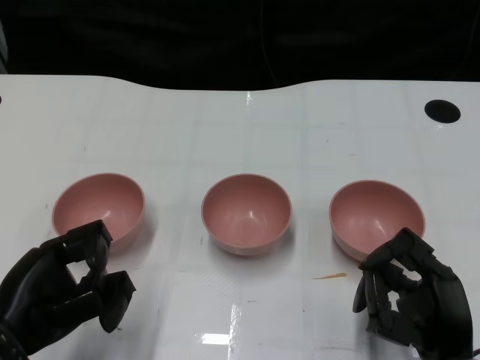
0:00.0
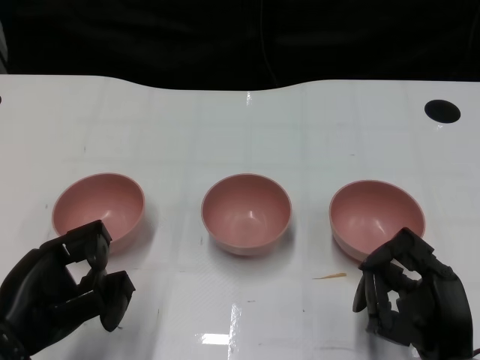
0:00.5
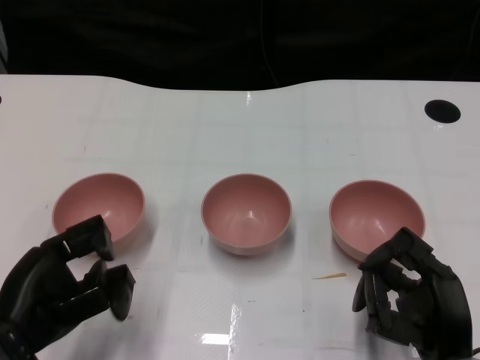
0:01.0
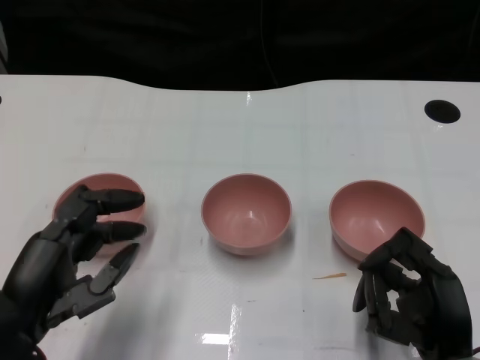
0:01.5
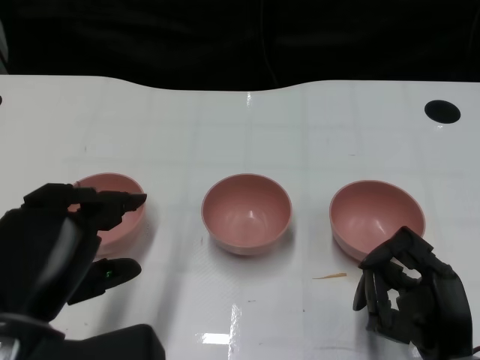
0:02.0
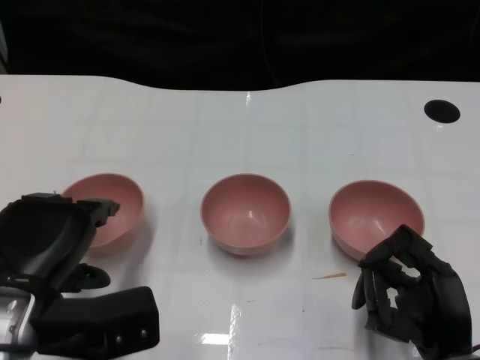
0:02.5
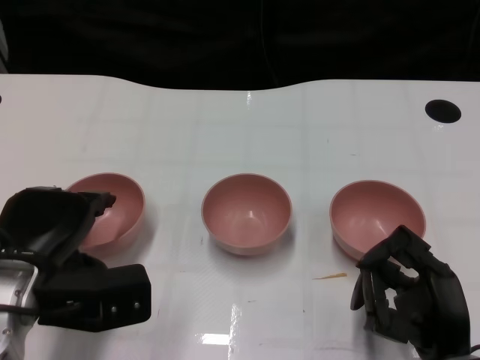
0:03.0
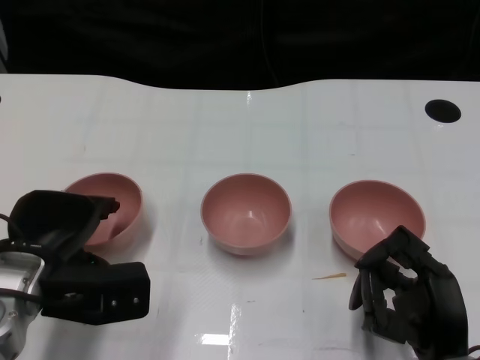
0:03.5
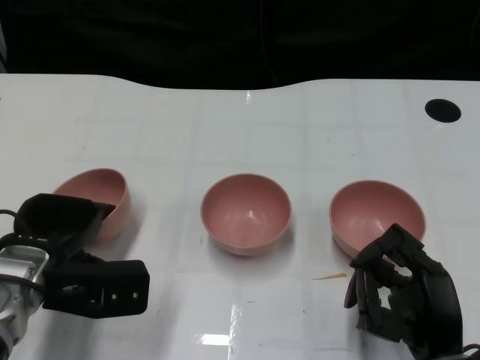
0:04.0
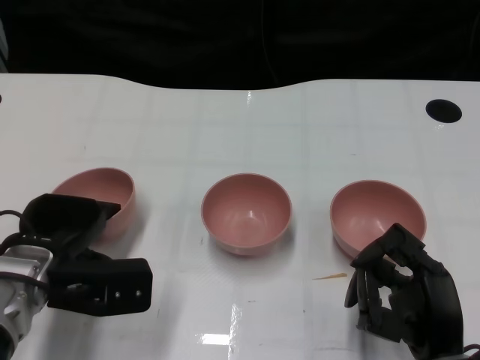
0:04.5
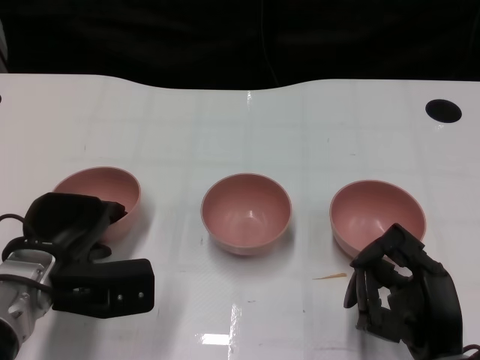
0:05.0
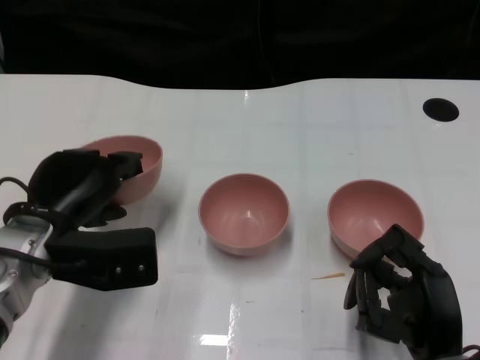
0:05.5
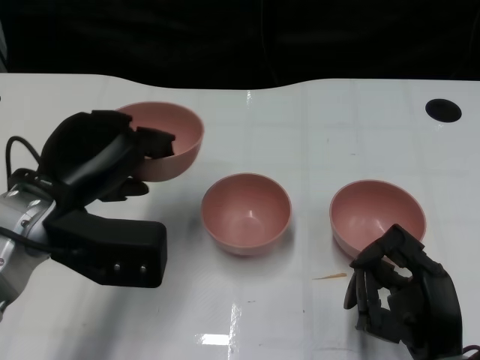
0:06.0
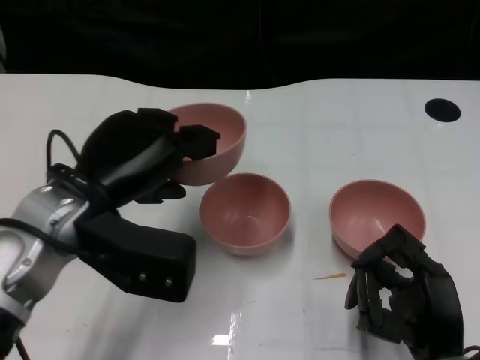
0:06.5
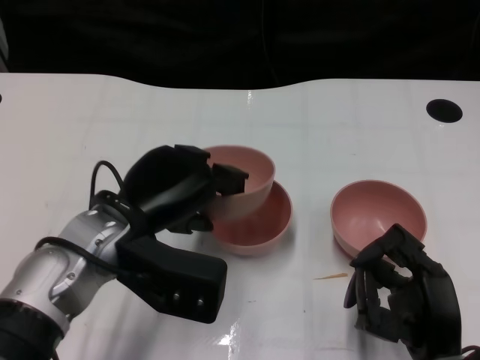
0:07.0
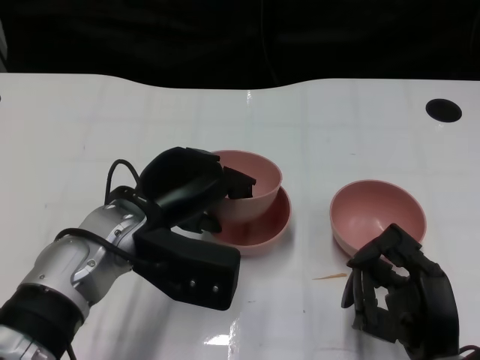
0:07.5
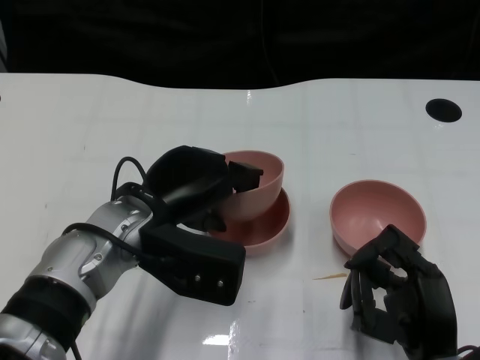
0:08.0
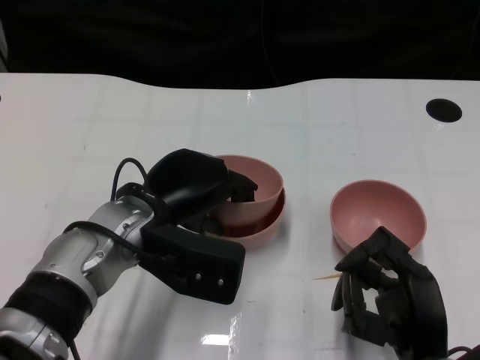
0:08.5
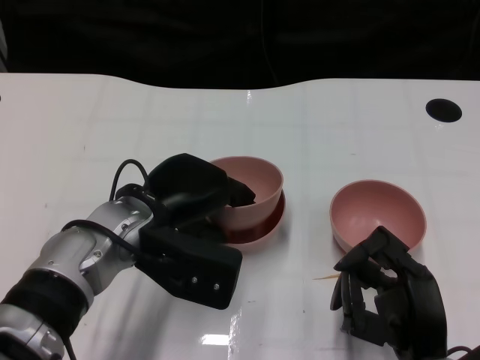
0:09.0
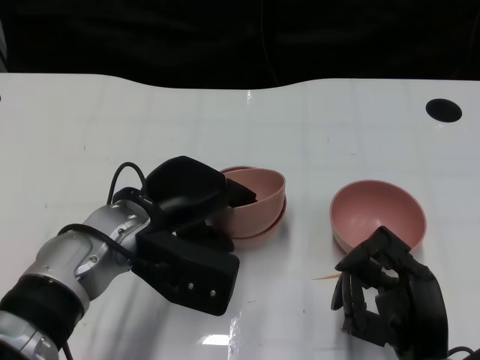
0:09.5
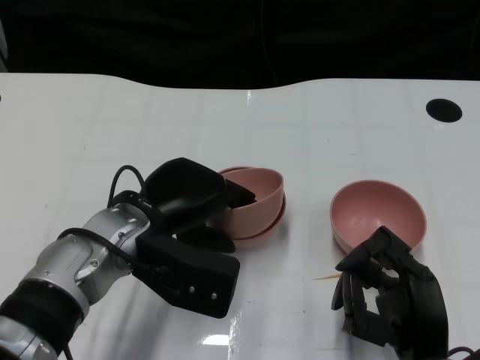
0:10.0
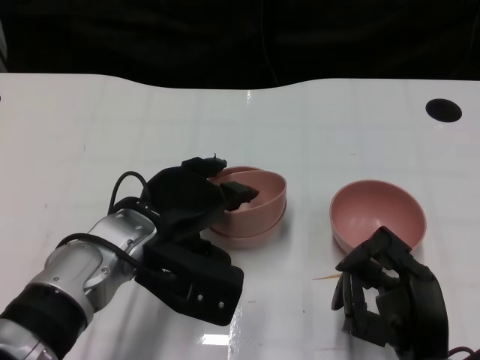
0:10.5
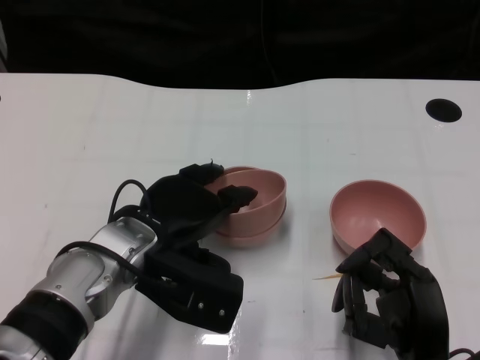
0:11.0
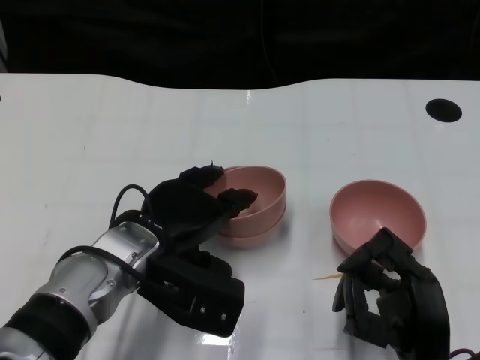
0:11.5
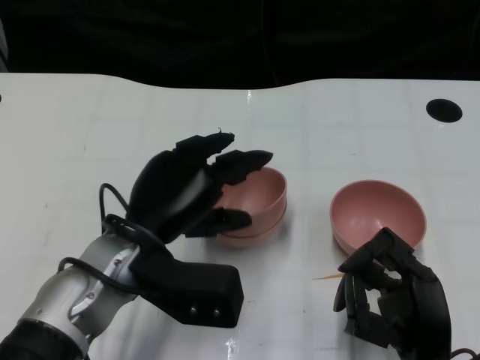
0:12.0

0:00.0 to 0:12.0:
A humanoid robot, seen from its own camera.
Task of the whole recording: Pick up the bowl on one side of the table and place it on top of the middle bowl, then pick up the bowl on the other side of the table and place it on top of the middle bowls.
Step, 0:01.0 to 0:05.0: Grasp the bowl on the left with the left gripper.
Step, 0:05.5 to 0:11.5: Place the bowl on the left onto the bowl in the middle with left gripper.
0:02.0 to 0:04.0: The left hand is displaced forward and downward by some 10 cm.
0:04.0 to 0:06.0: The left hand travels upward by roughly 10 cm.
0:06.0 to 0:08.0: The left hand is displaced to the right by approximately 10 cm.
0:08.0 to 0:10.0: The hands move only a little.

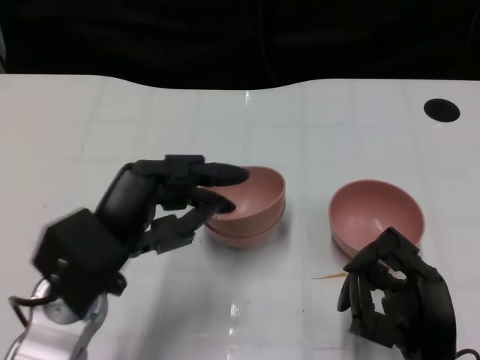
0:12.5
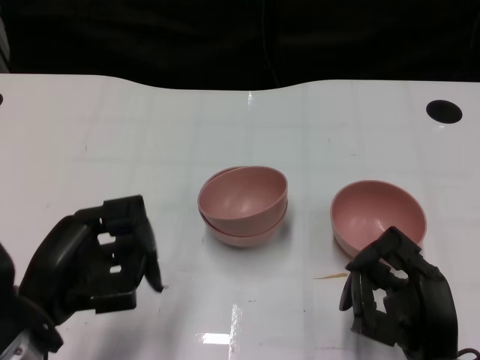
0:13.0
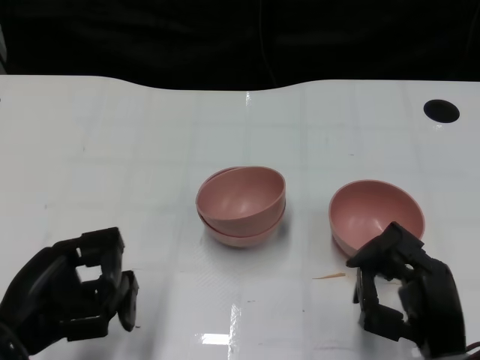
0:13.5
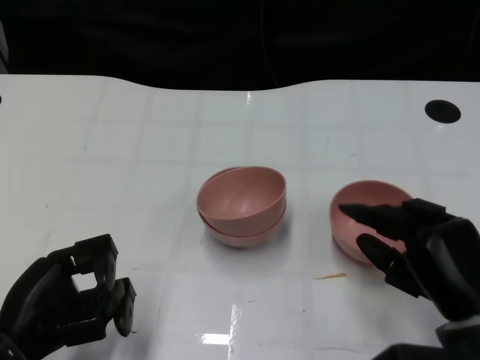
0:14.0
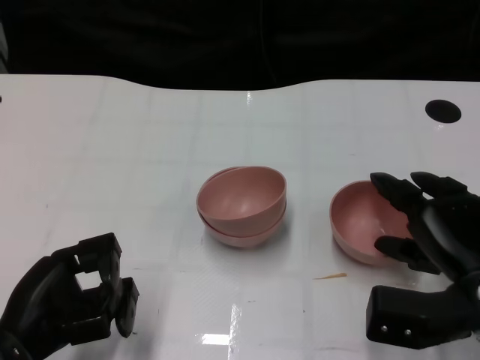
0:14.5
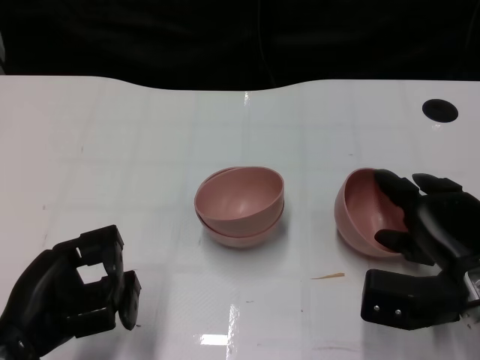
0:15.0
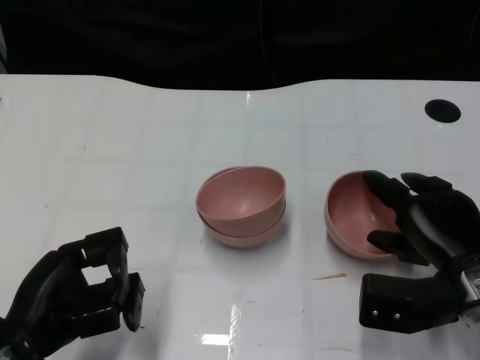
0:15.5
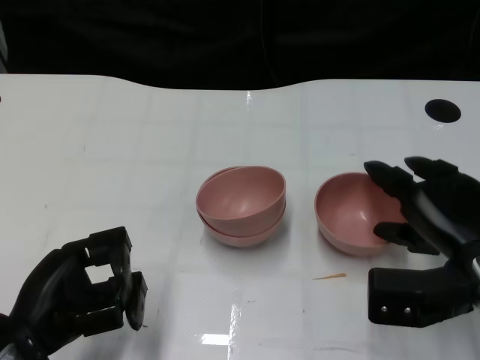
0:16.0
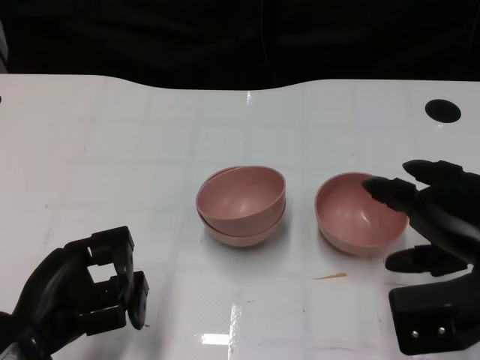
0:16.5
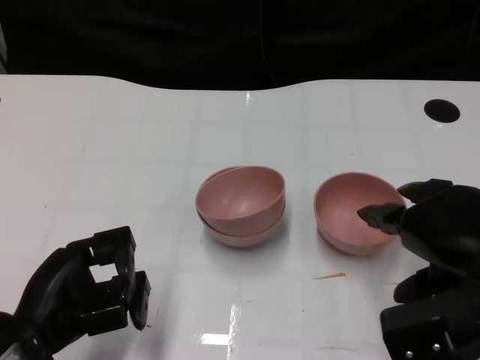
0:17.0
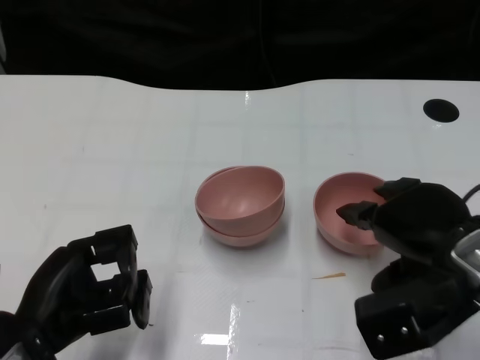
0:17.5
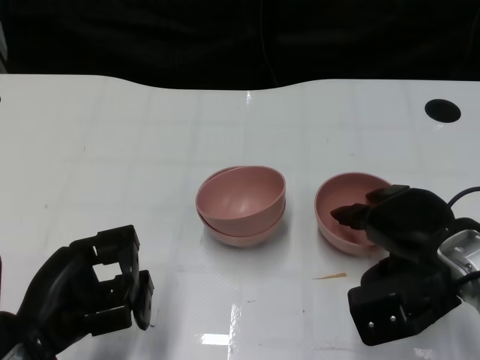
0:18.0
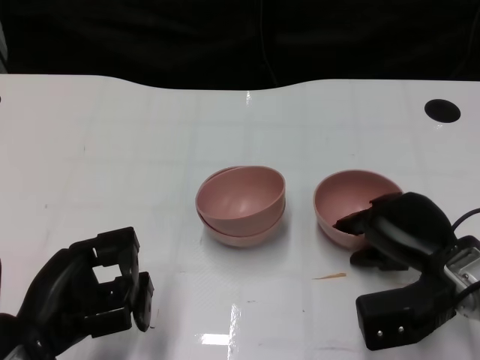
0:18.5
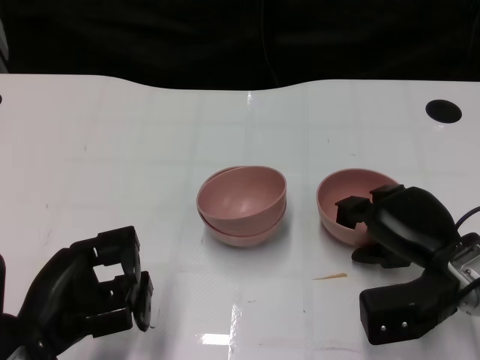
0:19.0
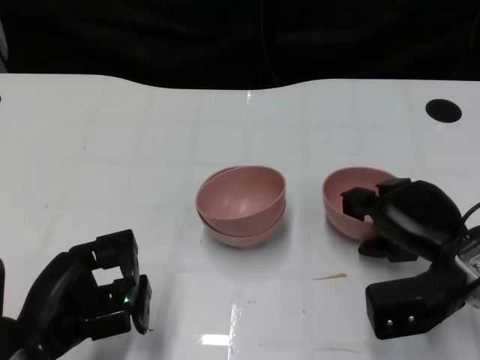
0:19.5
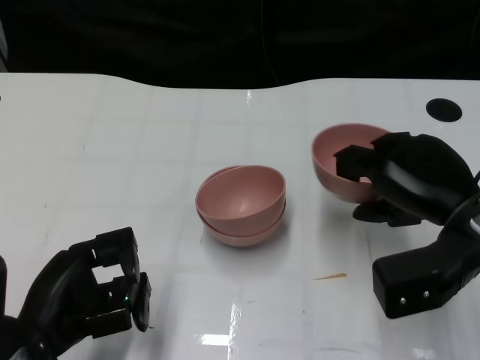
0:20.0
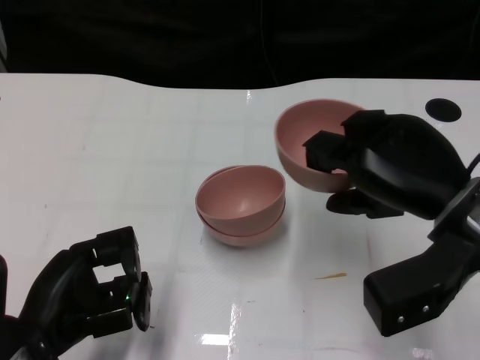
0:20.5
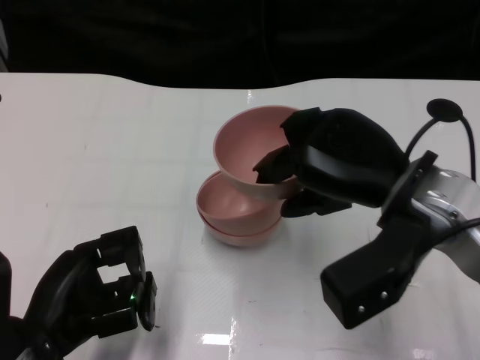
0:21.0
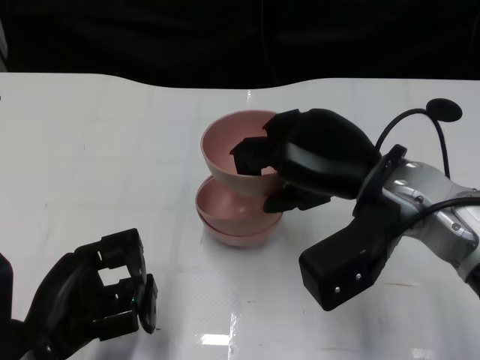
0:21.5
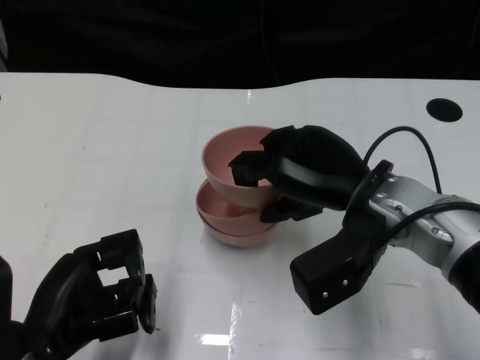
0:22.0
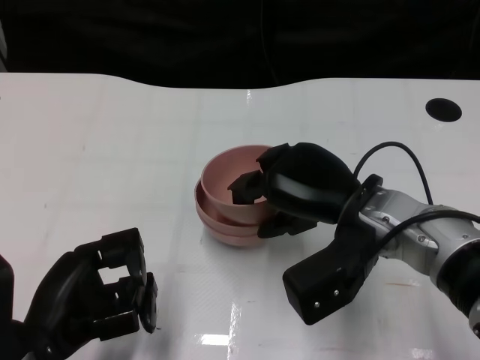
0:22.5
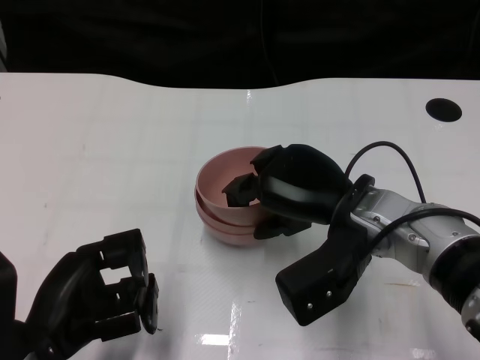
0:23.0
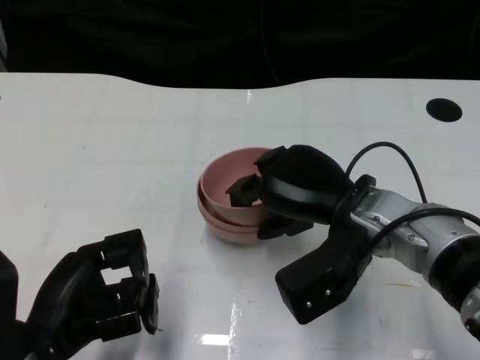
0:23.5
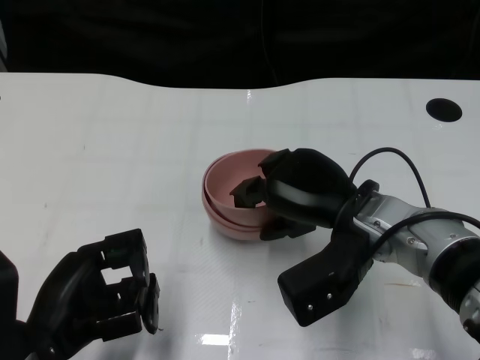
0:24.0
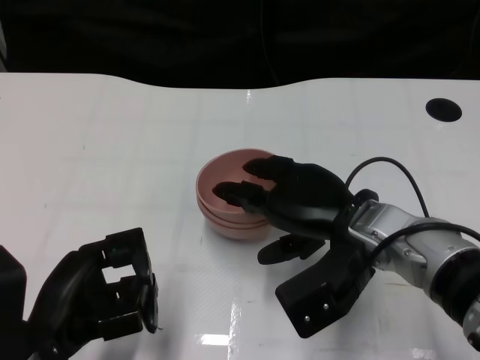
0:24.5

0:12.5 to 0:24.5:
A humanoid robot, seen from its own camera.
Task of the whole recording: Pick up the bowl on one side of the table and place it on top of the middle bowl, then pick up the bowl on the other side of the table and place it on top of the middle bowls.
Step, 0:12.5 to 0:19.5: Grasp the bowl on the right with the right gripper.
0:12.5 to 0:14.5: The left hand shifts some 10 cm to the left and downward. Meanwhile the right hand heads forward, to the right and upward, covering roughly 10 cm.
0:14.5 to 0:16.5: The right hand travels upward by roughly 5 cm.
0:16.5 to 0:18.5: The right hand is displaced downward by roughly 10 cm.
0:18.5 to 0:20.5: The right hand moves upward, approximately 10 cm.
0:20.5 to 0:22.5: The right hand shifts approximately 10 cm to the left and downward.
0:22.5 to 0:24.5: There are only small adjustments of the hands.

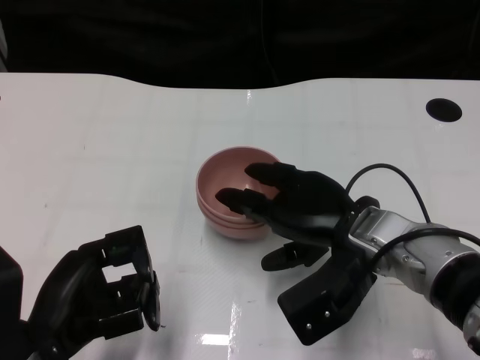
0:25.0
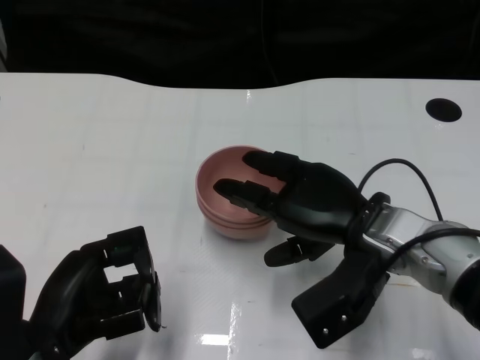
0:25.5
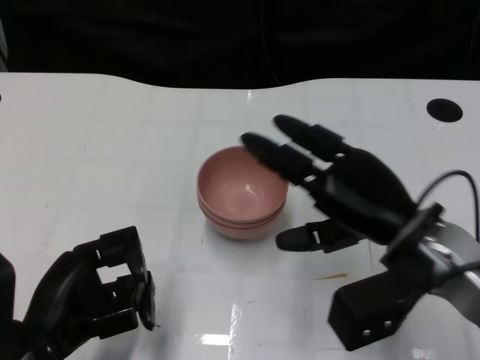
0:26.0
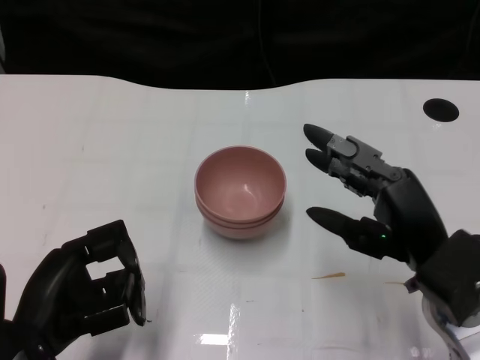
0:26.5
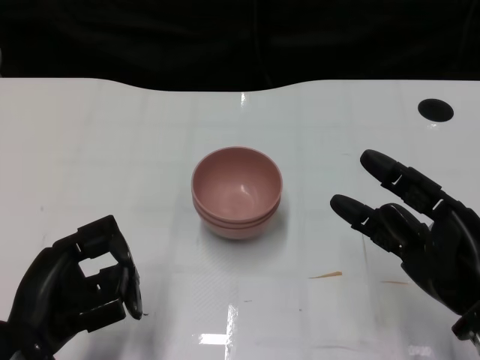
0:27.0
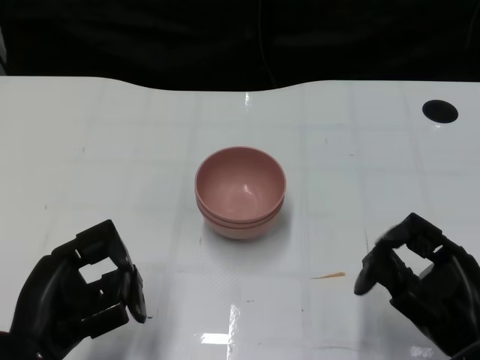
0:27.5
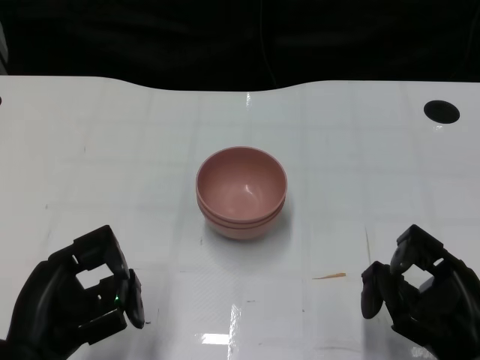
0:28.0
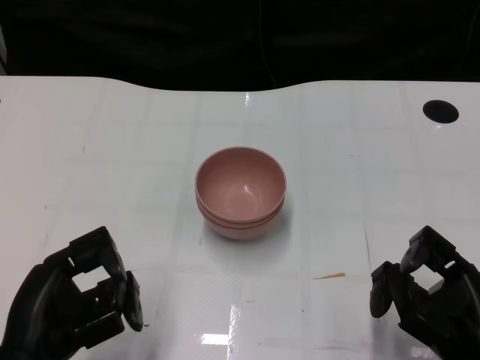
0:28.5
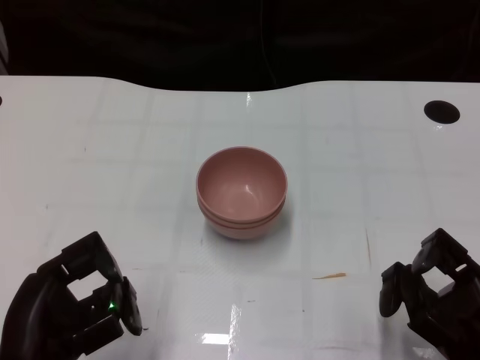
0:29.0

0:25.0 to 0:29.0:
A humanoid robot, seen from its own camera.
Task of the whole recording: Pick up the bowl on one side of the table and place it on top of the middle bowl, then pick up the bowl on the other side of the table and place it on top of the middle bowls.
0:25.0 to 0:27.0: The right hand travels to the right and backward by some 15 cm.
0:27.0 to 0:29.0: The right hand shifts about 5 cm downward.
